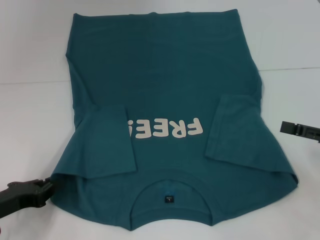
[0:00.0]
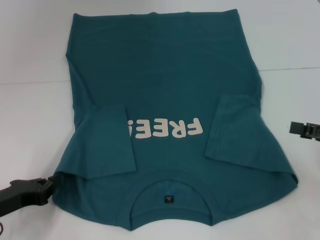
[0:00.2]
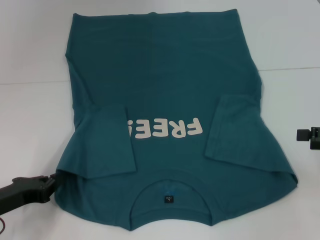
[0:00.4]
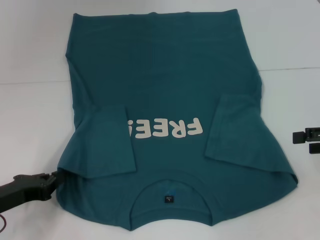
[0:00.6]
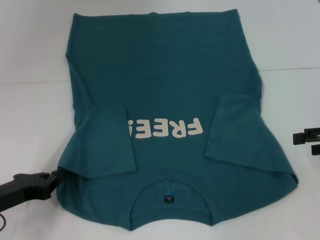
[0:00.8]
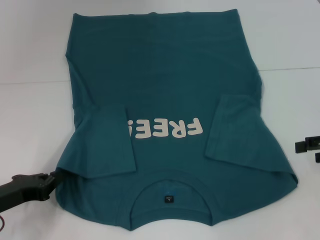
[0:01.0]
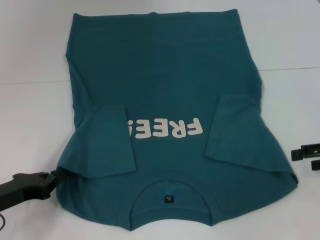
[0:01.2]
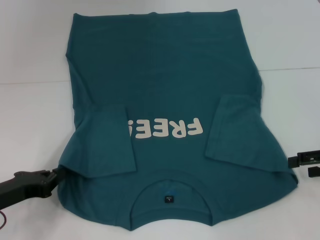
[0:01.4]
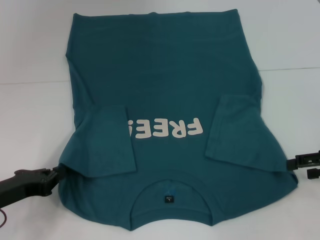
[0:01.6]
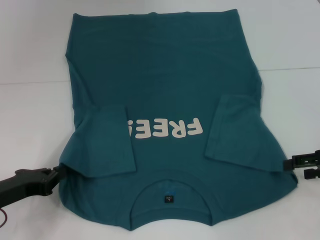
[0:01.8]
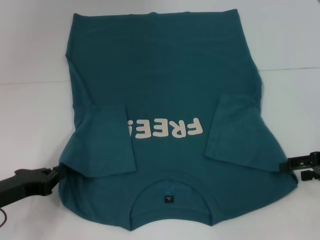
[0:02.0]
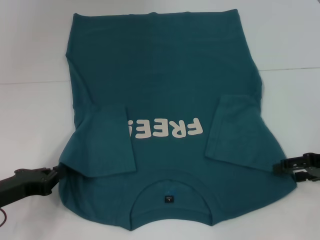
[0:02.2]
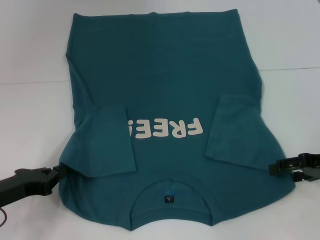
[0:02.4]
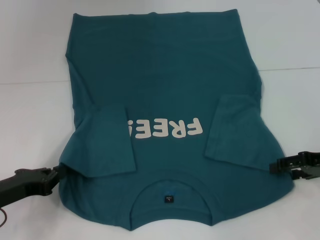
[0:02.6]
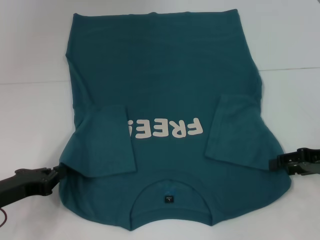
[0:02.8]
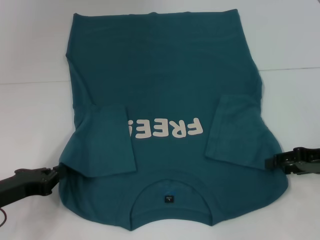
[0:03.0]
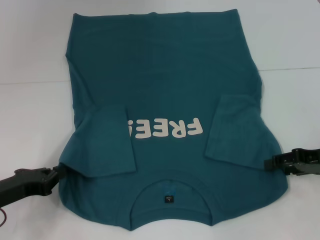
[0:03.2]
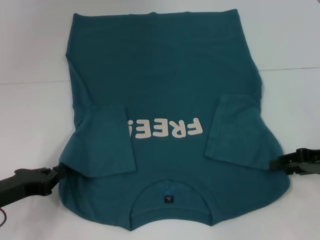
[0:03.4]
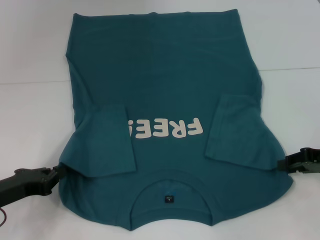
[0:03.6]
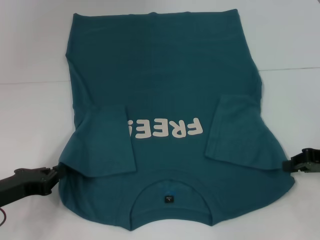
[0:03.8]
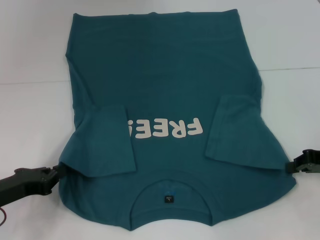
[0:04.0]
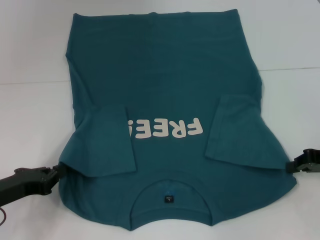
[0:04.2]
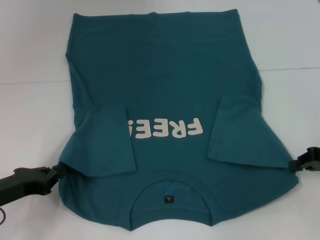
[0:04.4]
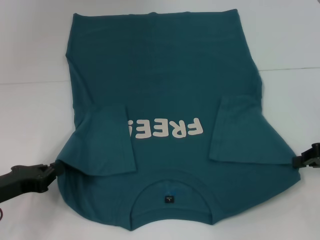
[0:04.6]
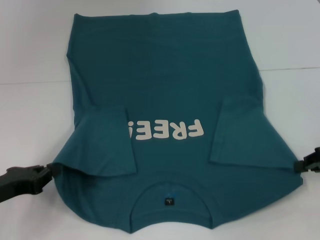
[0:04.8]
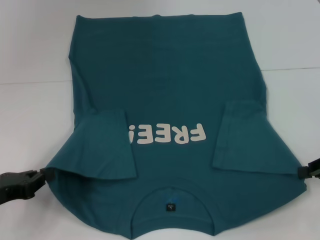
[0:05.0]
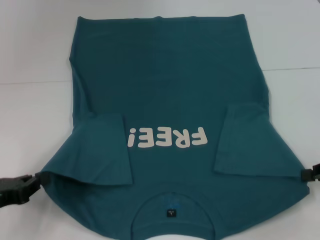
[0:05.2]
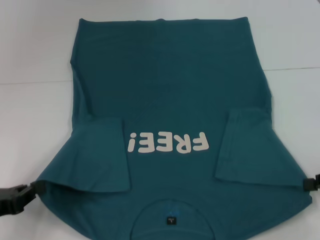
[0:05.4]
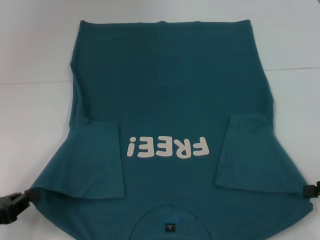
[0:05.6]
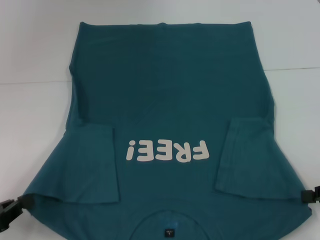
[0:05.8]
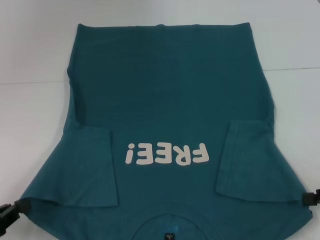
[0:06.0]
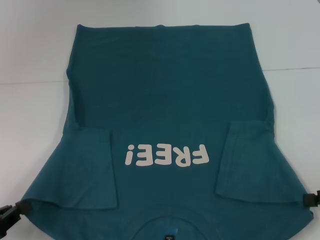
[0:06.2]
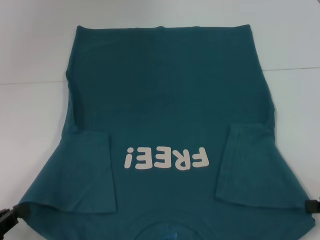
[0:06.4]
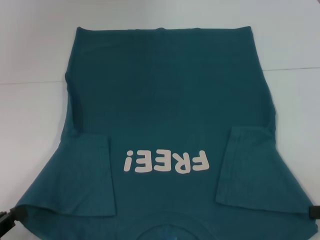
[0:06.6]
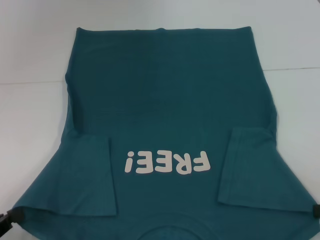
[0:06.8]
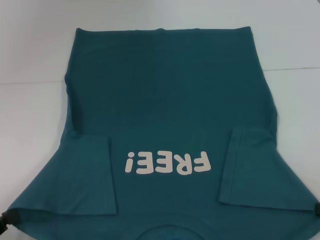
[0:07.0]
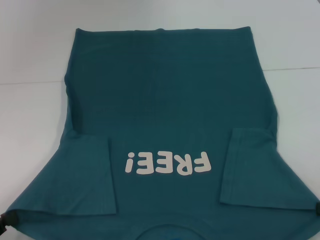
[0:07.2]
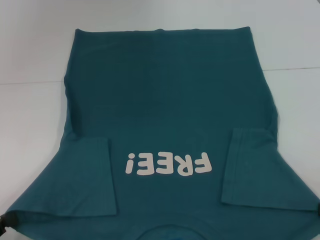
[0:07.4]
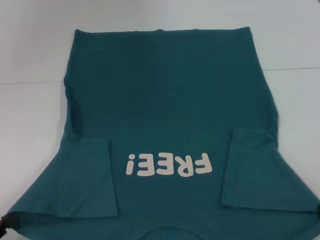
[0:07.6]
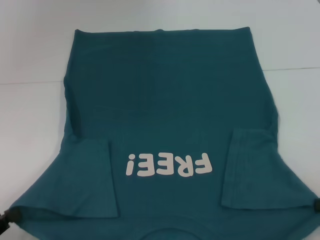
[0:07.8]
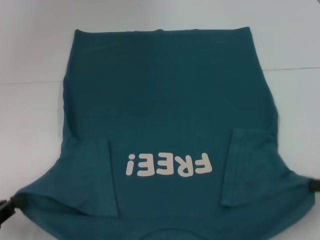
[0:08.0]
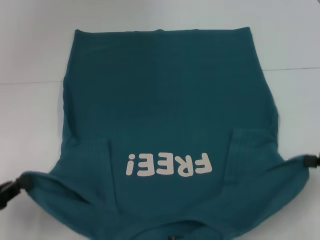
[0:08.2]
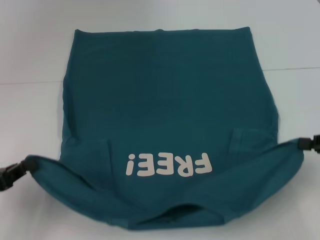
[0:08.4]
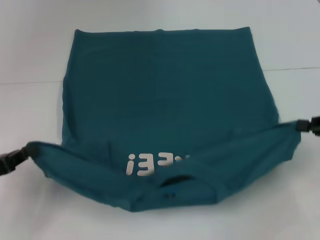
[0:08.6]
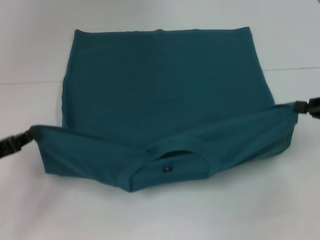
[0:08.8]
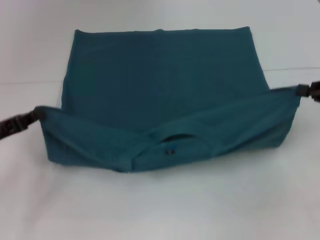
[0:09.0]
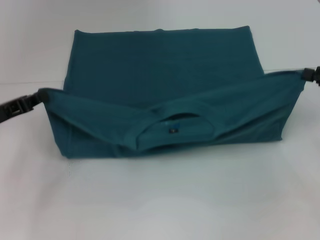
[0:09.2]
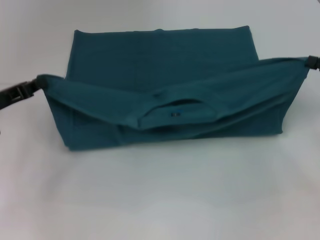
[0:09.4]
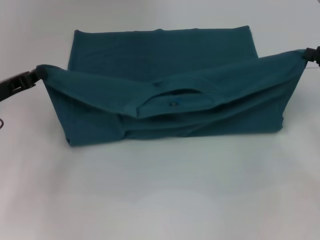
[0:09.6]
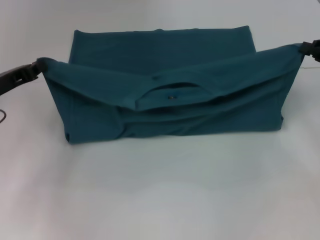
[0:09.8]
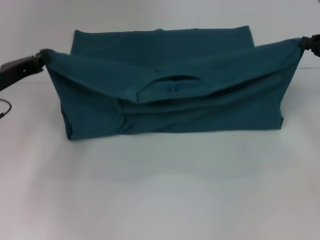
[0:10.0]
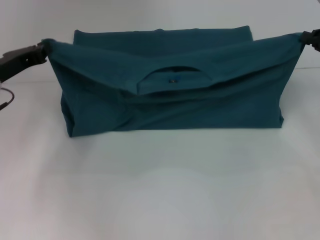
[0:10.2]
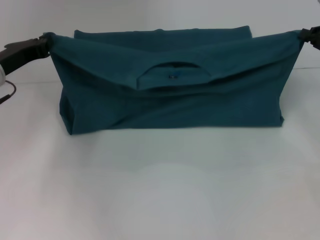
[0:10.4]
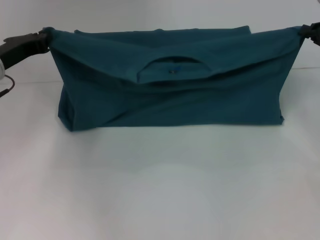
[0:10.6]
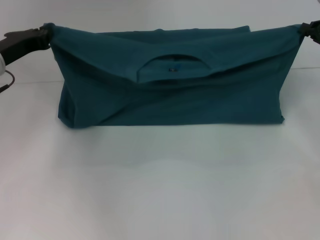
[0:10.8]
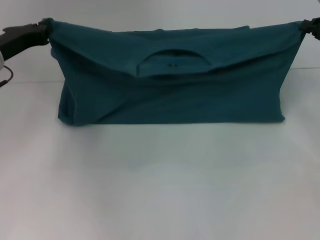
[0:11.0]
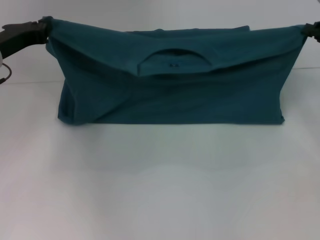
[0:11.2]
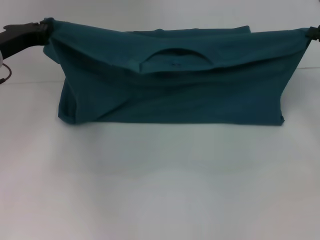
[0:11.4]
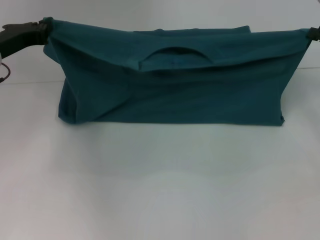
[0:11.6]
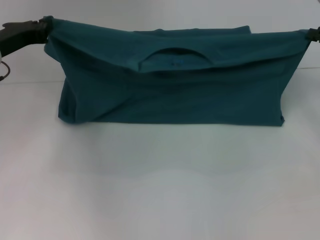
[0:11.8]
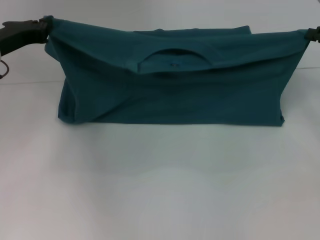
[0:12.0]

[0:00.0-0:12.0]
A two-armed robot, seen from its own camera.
Step, 0:00.6 to 0:04.0: Grab the bottom right corner with your right hand.
0:00.0 to 0:01.6: The left gripper closes.
0:01.6 to 0:03.0: The grippers stay close to where they were, moving slightly.
0:03.0 to 0:04.4: The right gripper closes.
0:04.4 to 0:06.0: The grippers both shift backward by roughly 10 cm.
0:06.0 to 0:07.6: There are only small adjustments of the grippers.
0:07.6 to 0:09.0: The left gripper shifts some 15 cm forward, while the right gripper is displaced forward and upward by about 15 cm.
0:09.0 to 0:10.4: The right gripper moves forward, some 5 cm; the left gripper is displaced forward by roughly 10 cm.
0:10.4 to 0:12.0: The grippers move only a little.

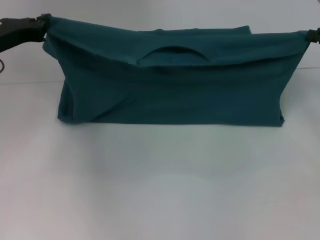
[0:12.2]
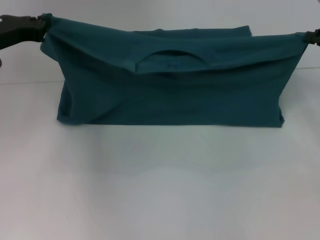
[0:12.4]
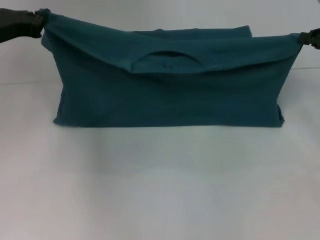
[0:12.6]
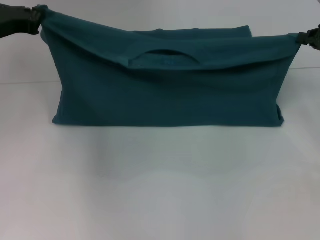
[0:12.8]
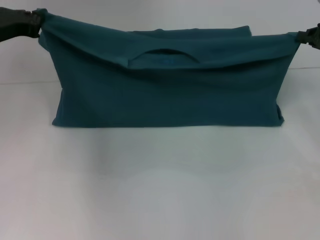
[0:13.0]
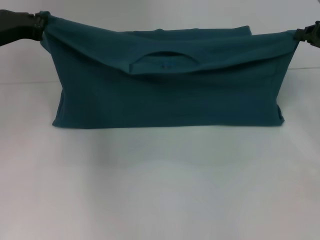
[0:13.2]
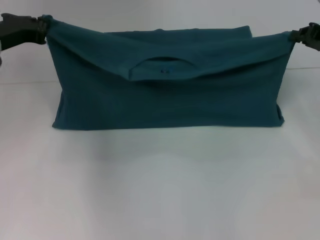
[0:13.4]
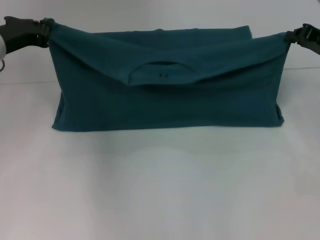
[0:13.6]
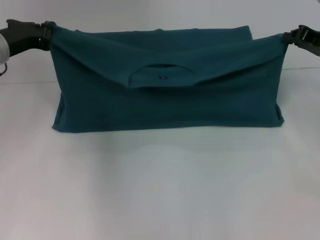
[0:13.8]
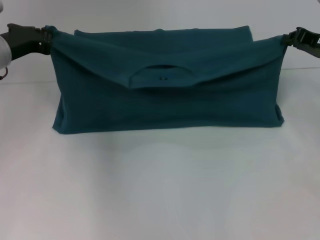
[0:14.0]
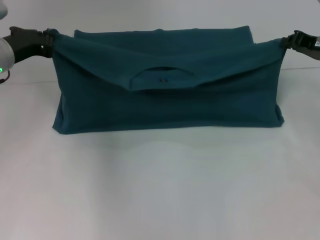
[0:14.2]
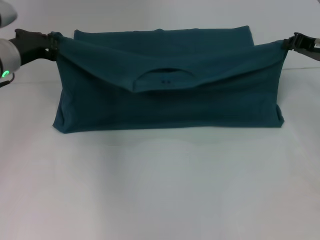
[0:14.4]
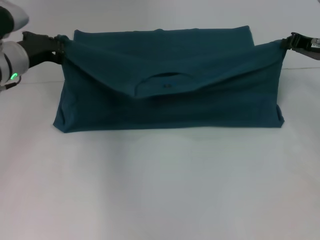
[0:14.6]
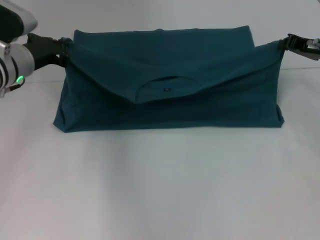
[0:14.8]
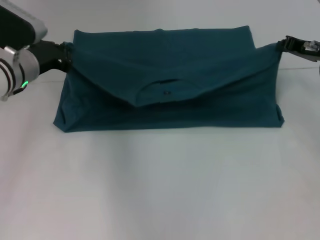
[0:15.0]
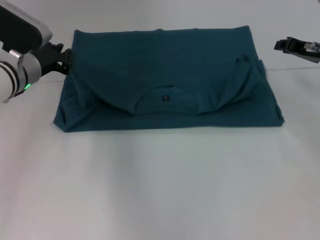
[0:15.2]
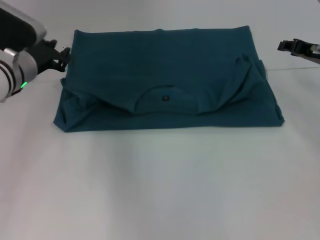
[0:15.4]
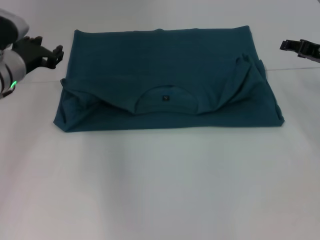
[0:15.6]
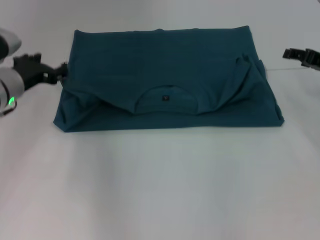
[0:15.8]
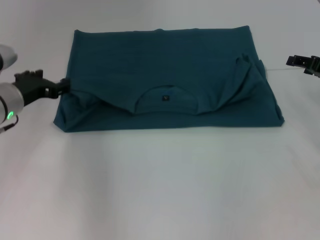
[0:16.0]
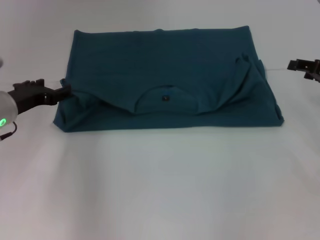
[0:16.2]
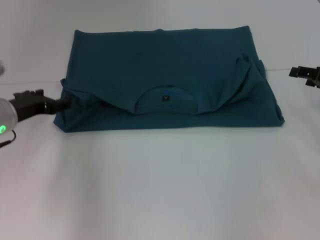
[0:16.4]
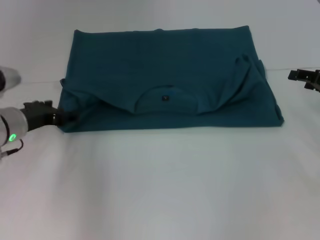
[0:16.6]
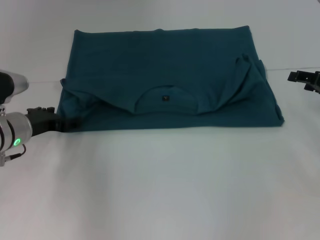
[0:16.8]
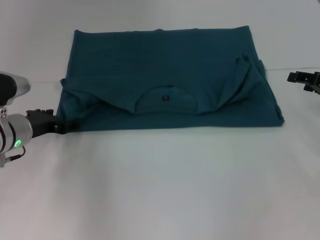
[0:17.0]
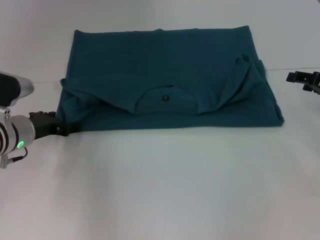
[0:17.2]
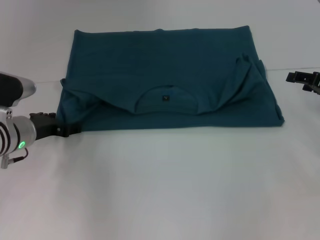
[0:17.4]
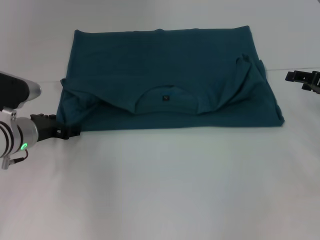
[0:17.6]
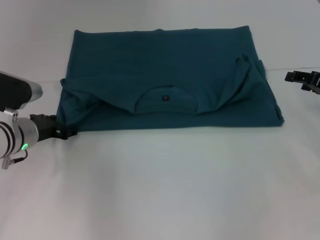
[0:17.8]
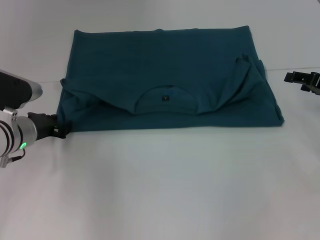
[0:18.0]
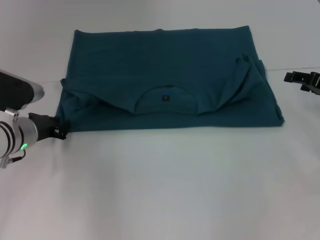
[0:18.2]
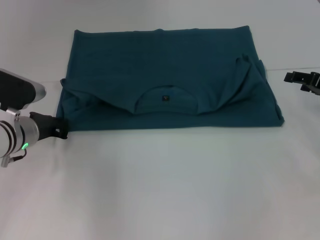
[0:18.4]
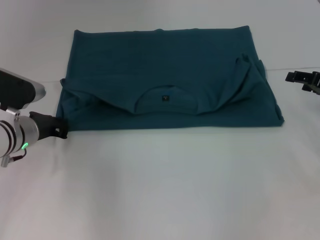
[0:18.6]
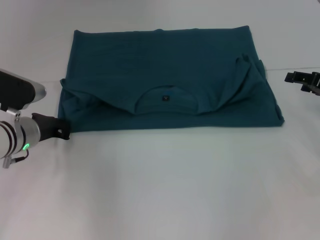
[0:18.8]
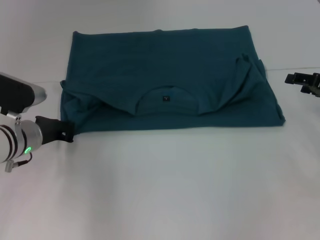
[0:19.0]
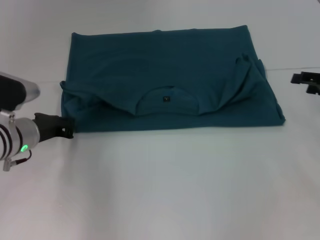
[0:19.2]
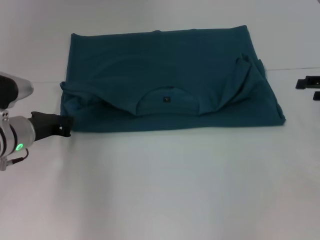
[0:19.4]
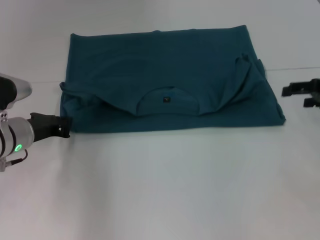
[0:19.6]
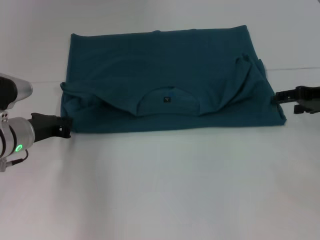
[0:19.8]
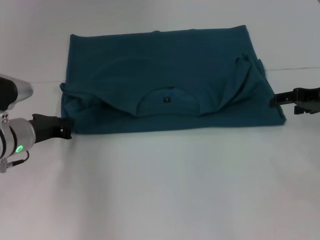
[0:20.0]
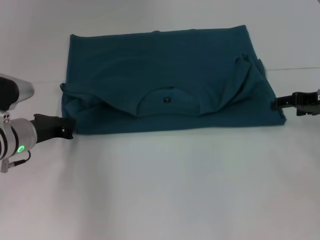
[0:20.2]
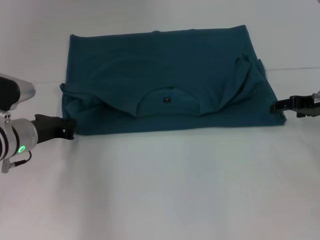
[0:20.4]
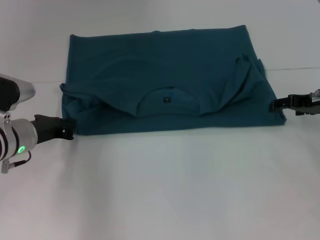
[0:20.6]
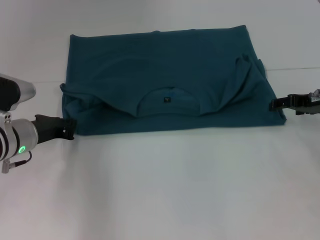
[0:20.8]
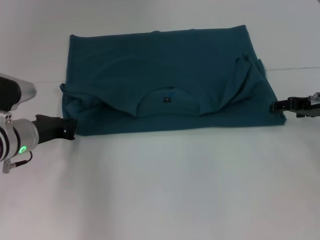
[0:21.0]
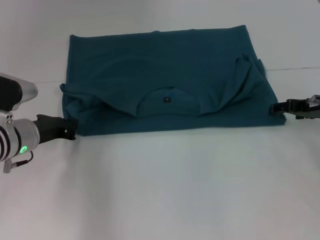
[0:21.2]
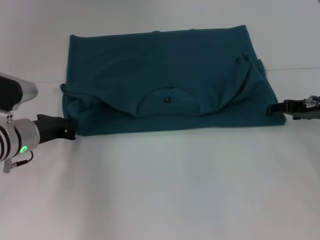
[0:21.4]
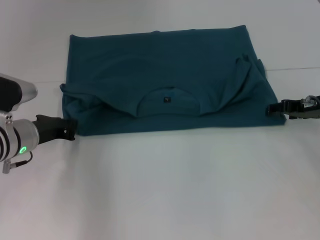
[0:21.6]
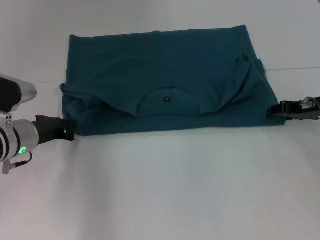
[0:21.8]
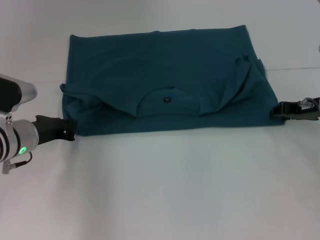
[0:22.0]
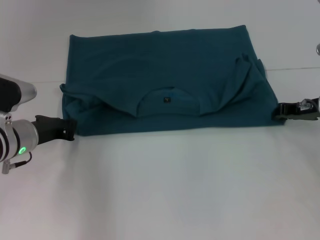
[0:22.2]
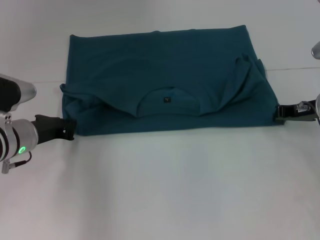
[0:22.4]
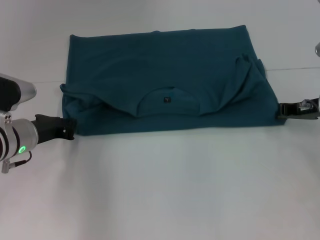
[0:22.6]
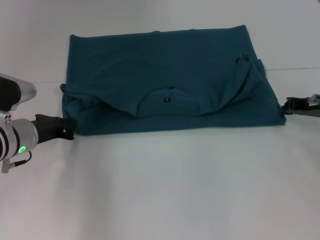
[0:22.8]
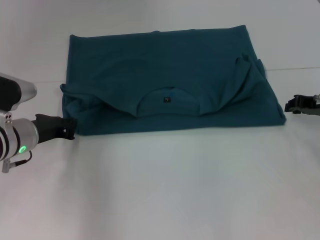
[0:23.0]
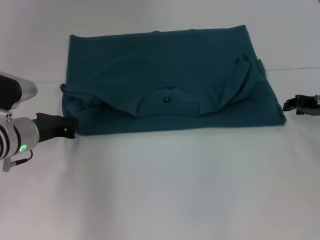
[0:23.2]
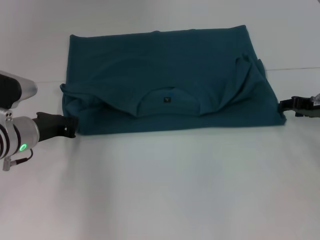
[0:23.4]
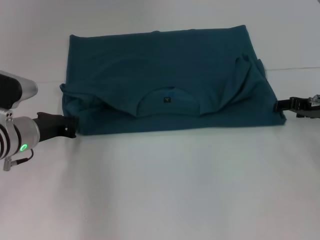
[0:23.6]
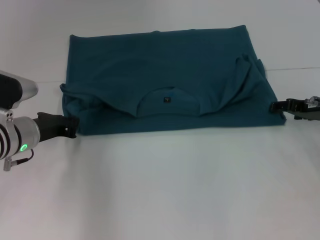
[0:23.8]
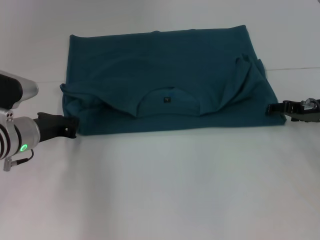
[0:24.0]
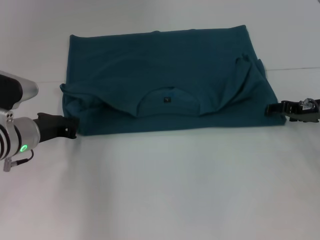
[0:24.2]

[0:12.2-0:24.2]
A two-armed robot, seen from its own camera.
Step, 0:12.2 to 0:15.4: Fold the clothes to the left.
Step, 0:12.2 to 0:15.4: Fold the clothes to the right.
0:12.2 to 0:13.8: There are only small adjustments of the grippers.
0:13.8 to 0:15.2: The left gripper ends up approximately 5 cm from where it was.
0:15.2 to 0:16.6: The grippers both shift backward by some 5 cm. The right gripper opens up. The left gripper opens its fingers.
0:16.6 to 0:18.2: The left gripper closes.
0:18.2 to 0:19.8: The left gripper closes its fingers.
0:19.8 to 0:21.2: The grippers stay close to where they were, moving slightly.
0:21.2 to 0:22.6: The right gripper closes its fingers.
0:22.6 to 0:24.2: The right gripper opens up.
